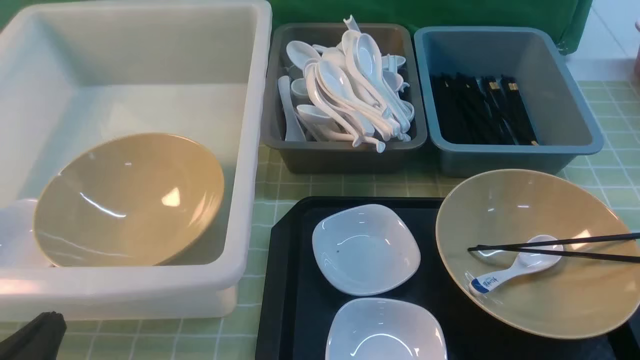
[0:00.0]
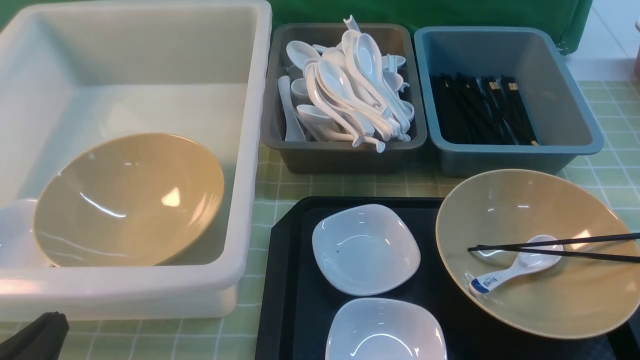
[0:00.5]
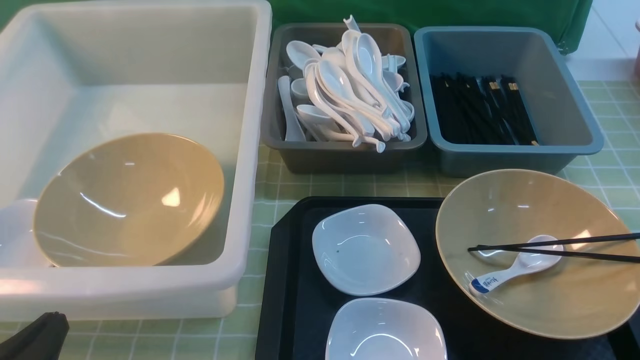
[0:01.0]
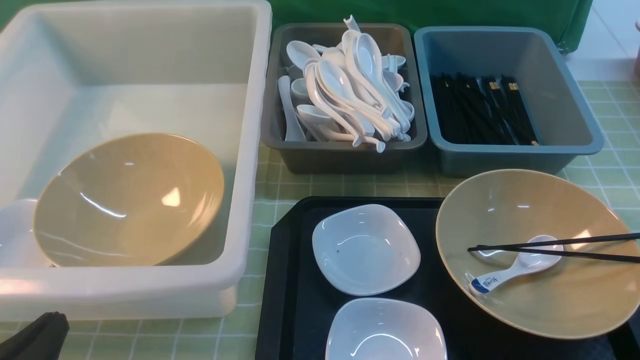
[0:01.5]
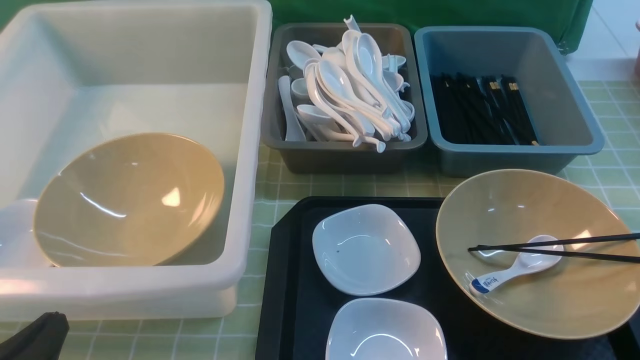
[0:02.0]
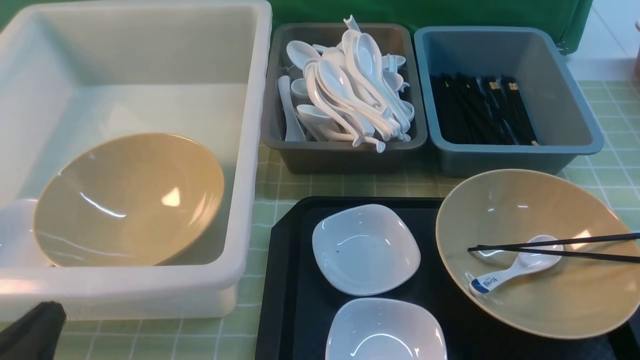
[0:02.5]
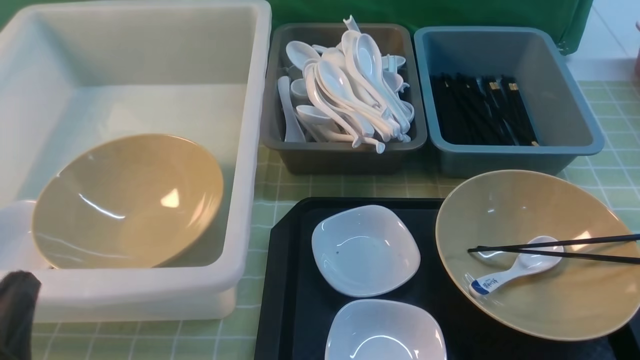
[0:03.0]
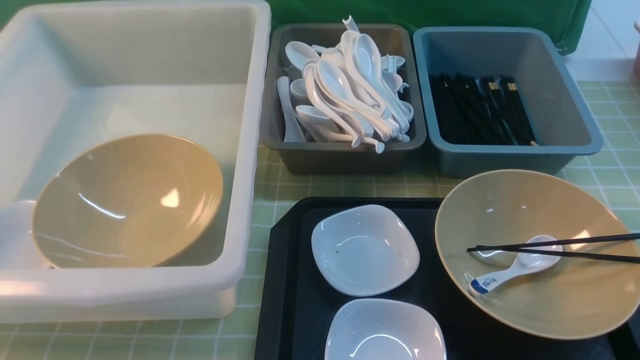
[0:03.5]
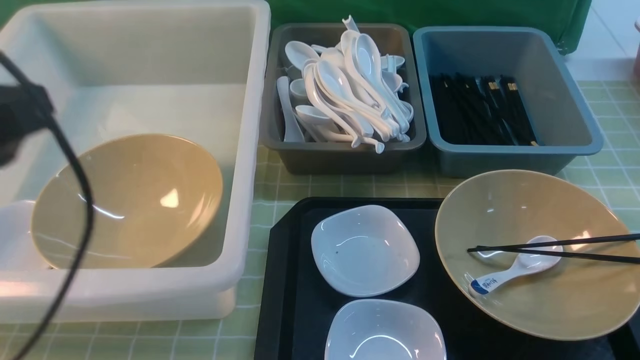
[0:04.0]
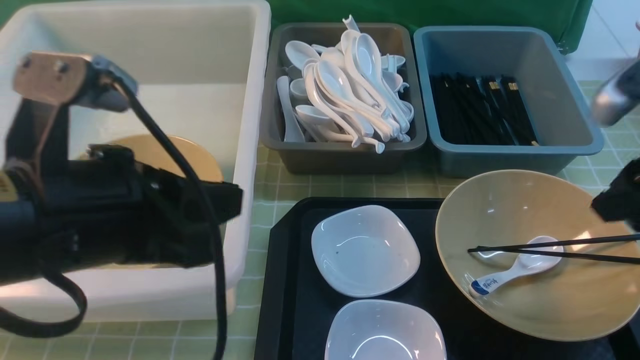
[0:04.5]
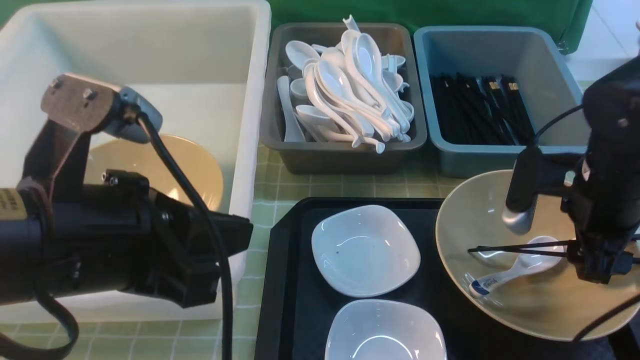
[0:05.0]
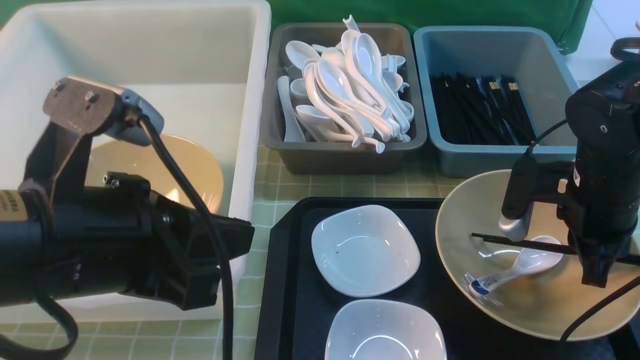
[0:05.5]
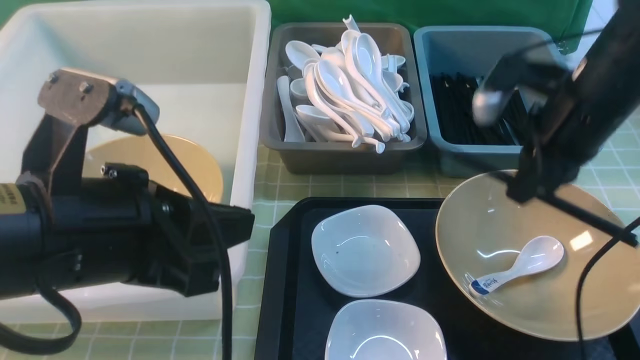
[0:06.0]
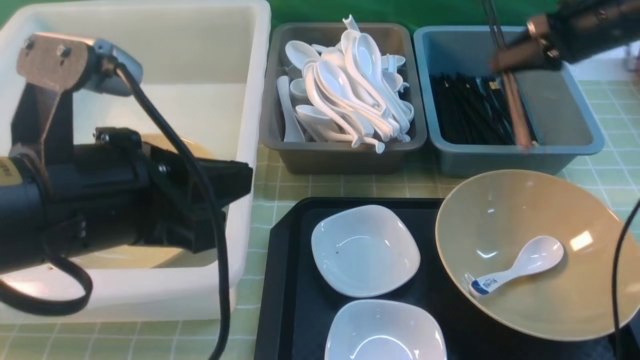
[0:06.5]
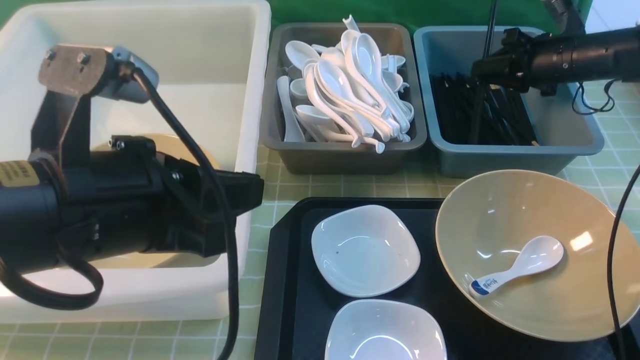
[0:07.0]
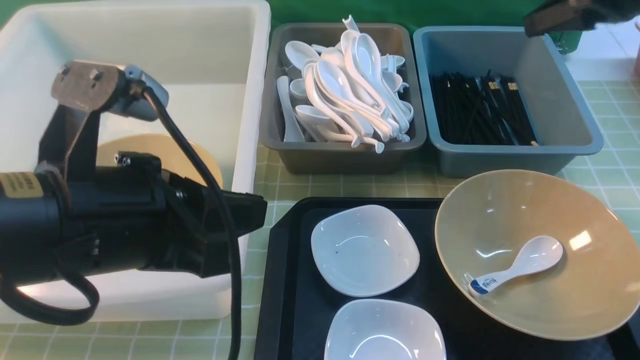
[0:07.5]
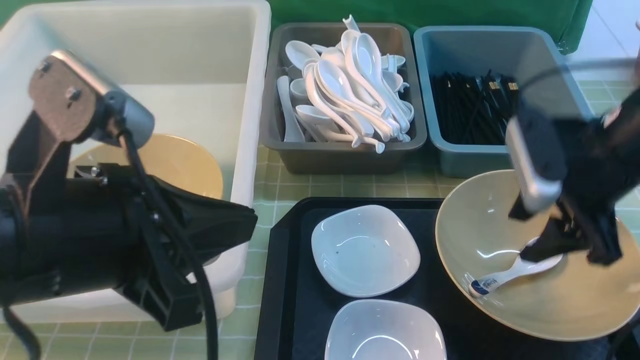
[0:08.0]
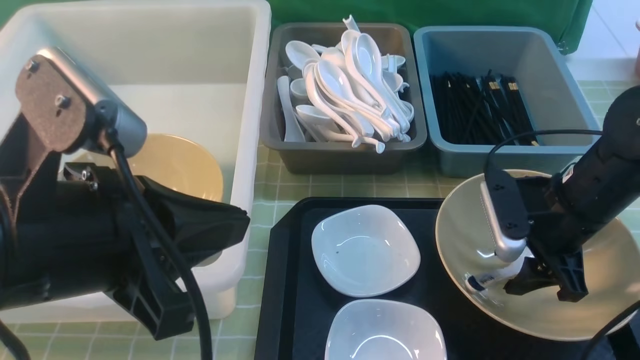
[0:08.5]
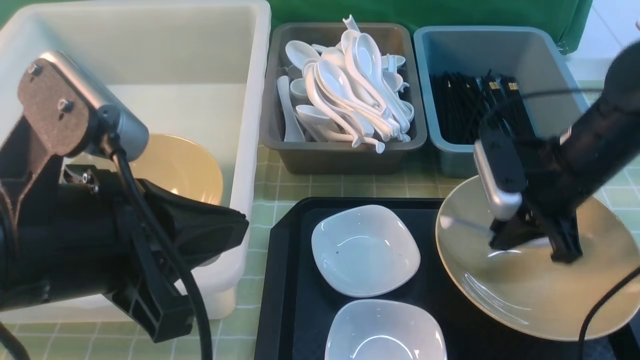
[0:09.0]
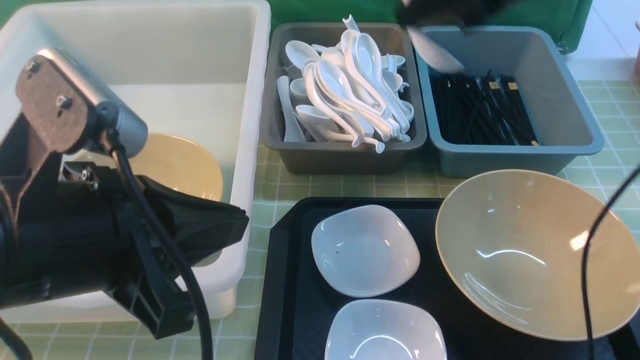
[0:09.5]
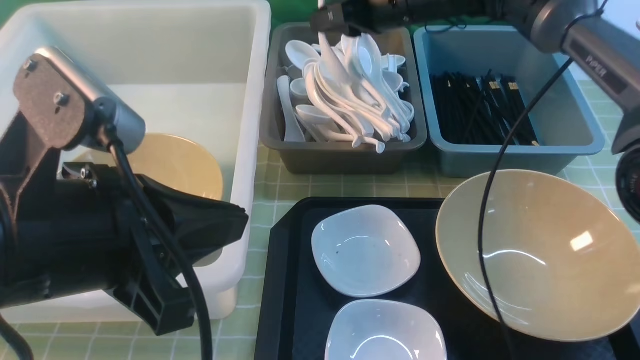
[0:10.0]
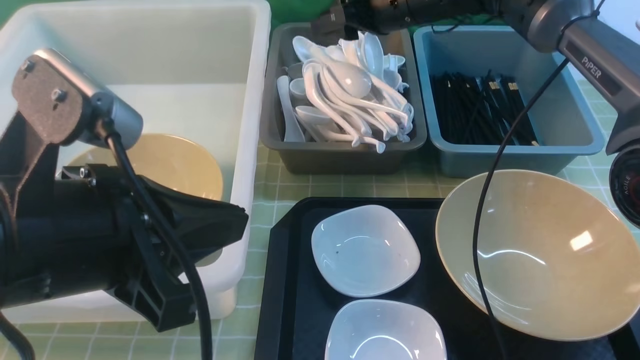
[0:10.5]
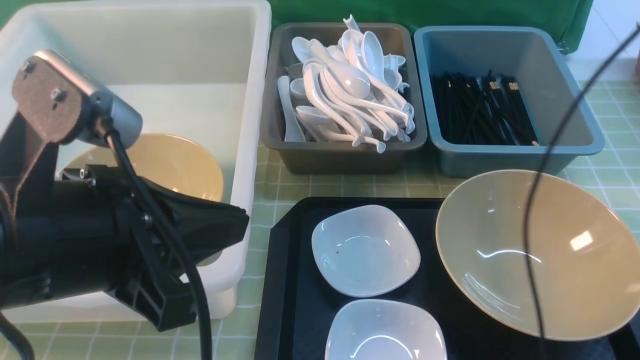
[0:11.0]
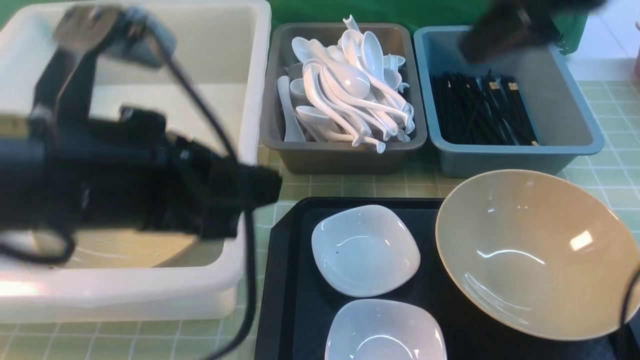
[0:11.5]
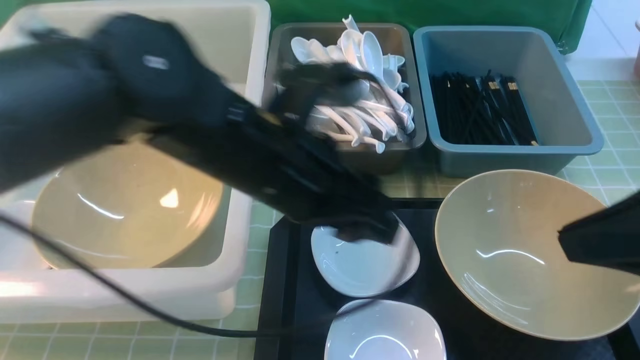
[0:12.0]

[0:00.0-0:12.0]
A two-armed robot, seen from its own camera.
Task of the whole recording: on green table put chopsticks spoon bowls plates into blue grey white boxes.
Step, 0:00.0 to 0:06.0: use the right arm to grab the chopsticks.
Step, 0:06.5 to 0:07.0: use the right arm to put the chopsticks into the small storage box on the right.
Step, 0:07.5 to 0:09.0: use the right arm to grab the soup spoon in the middle.
Step, 0:09.5 to 0:10.0: use the right arm to put the soup spoon into the small storage box in the middle.
0:00.0 to 0:02.0: The two grippers keep their place.
0:02.0 to 0:04.0: The grippers both shift upward and forward by some 20 cm.
0:04.0 to 0:06.0: The left gripper heads to the right, covering roughly 5 cm. Meanwhile the right gripper travels forward and downward by roughly 20 cm, and opens, then closes again.
0:06.0 to 0:08.0: The right gripper moves some 15 cm forward and comes back, and opens its fingers.
0:08.0 to 0:10.0: The right gripper travels forward and to the left by roughly 25 cm, and closes.
0:10.0 to 0:12.0: The right gripper moves backward, roughly 35 cm, and opens, then closes once more. The left gripper travels to the right and forward by some 15 cm, and opens up.

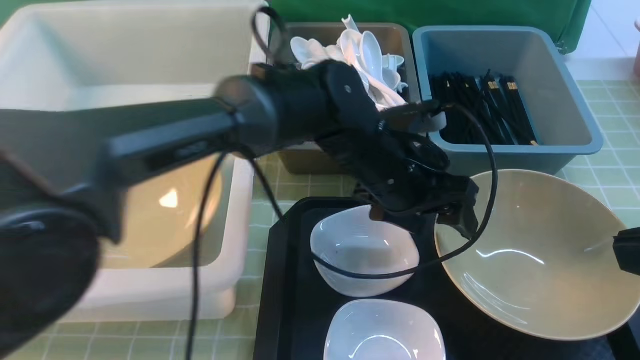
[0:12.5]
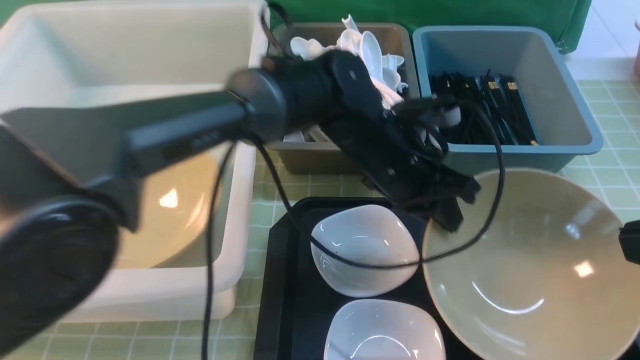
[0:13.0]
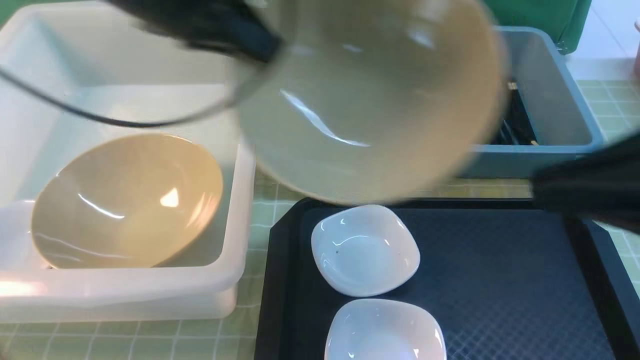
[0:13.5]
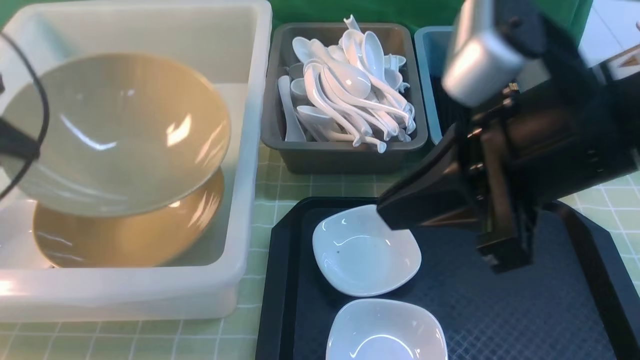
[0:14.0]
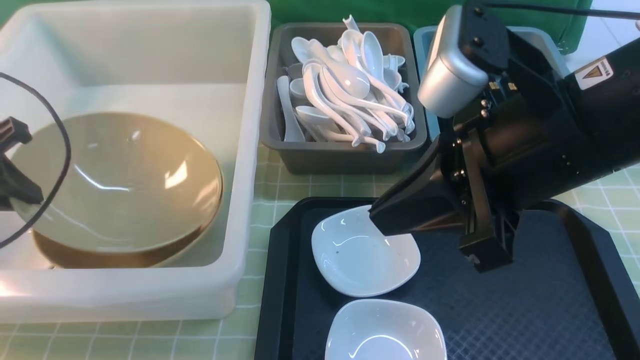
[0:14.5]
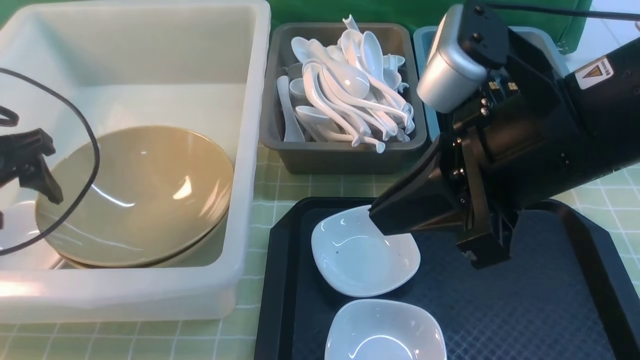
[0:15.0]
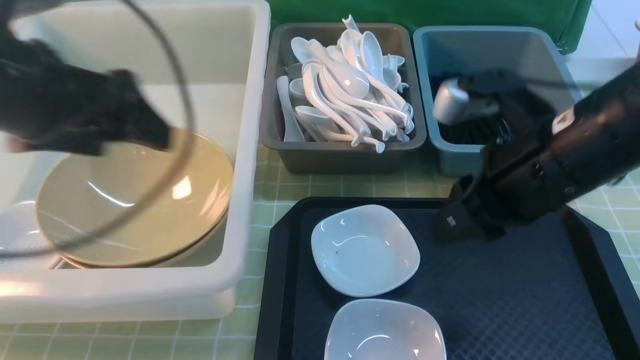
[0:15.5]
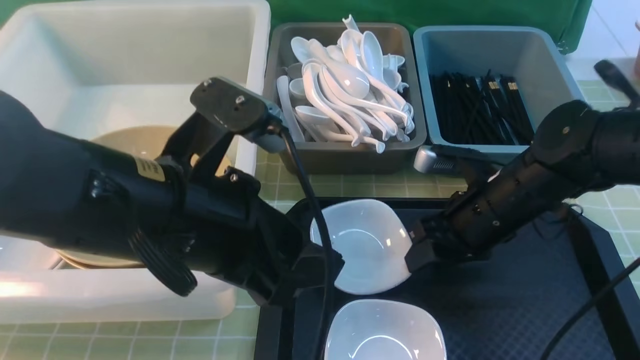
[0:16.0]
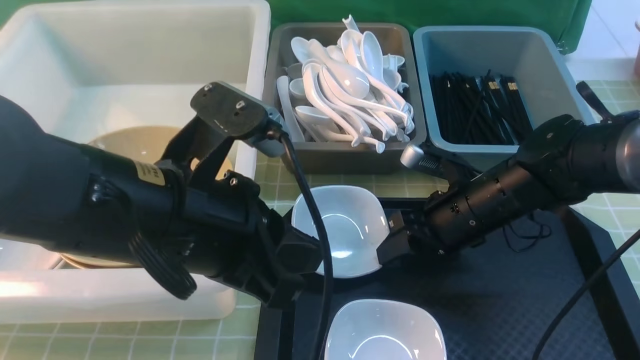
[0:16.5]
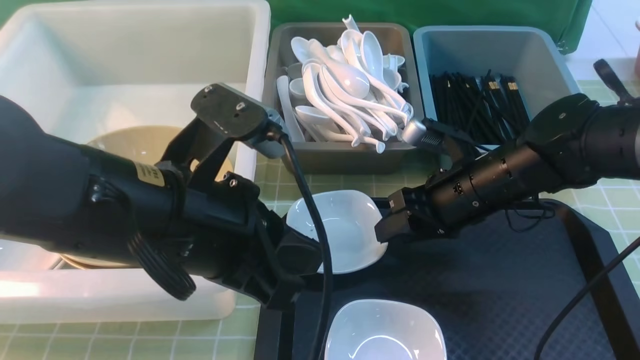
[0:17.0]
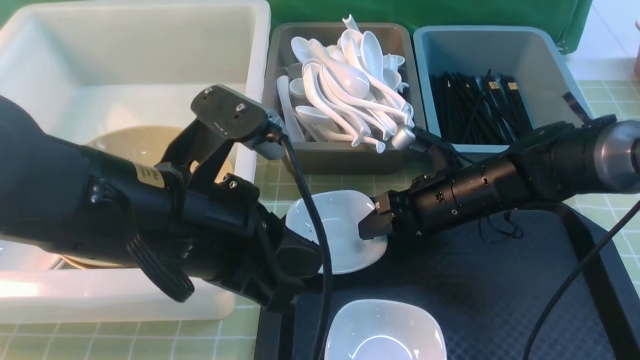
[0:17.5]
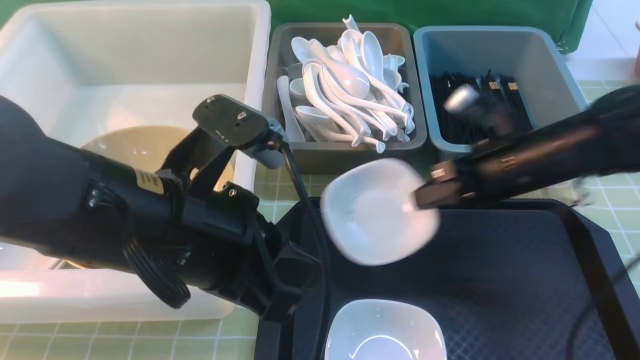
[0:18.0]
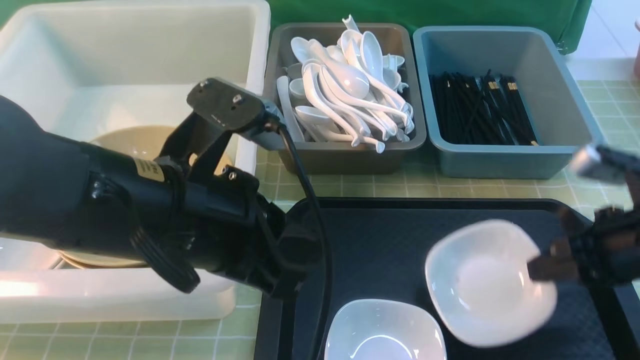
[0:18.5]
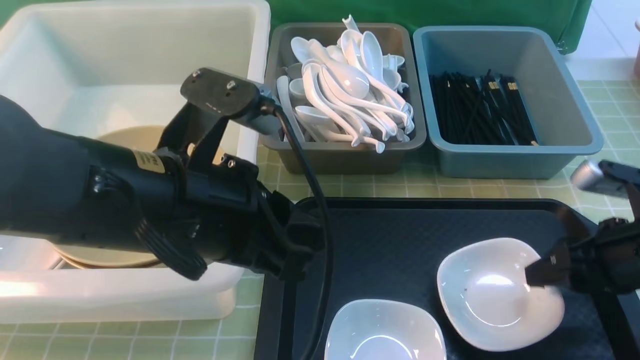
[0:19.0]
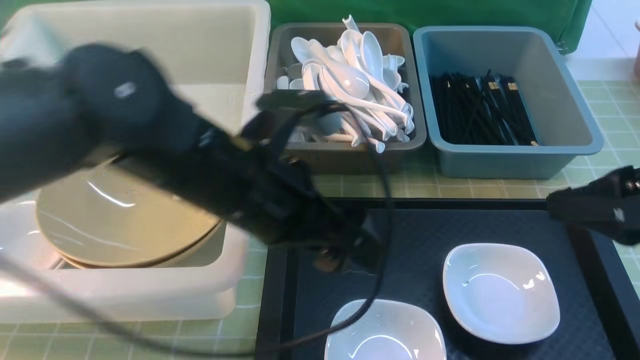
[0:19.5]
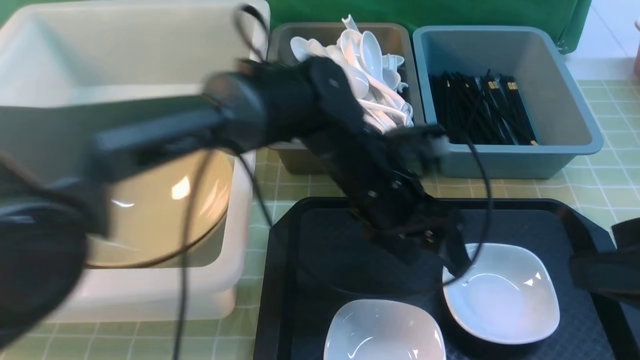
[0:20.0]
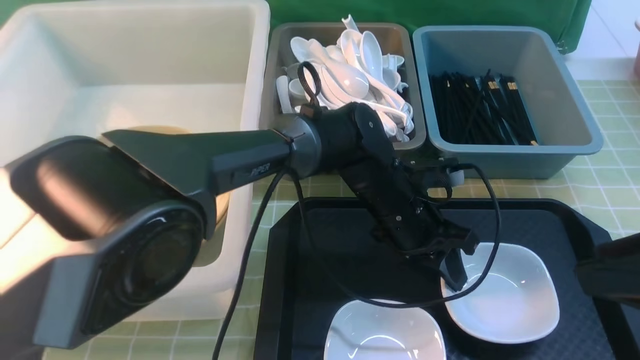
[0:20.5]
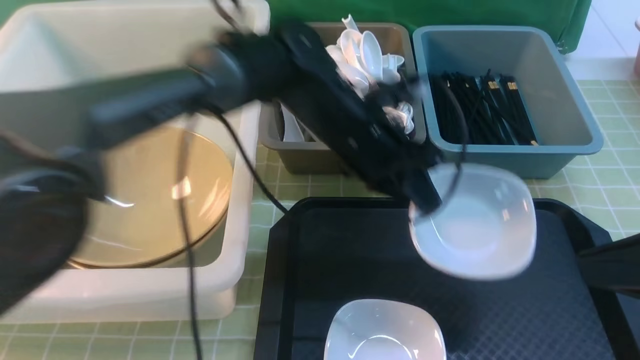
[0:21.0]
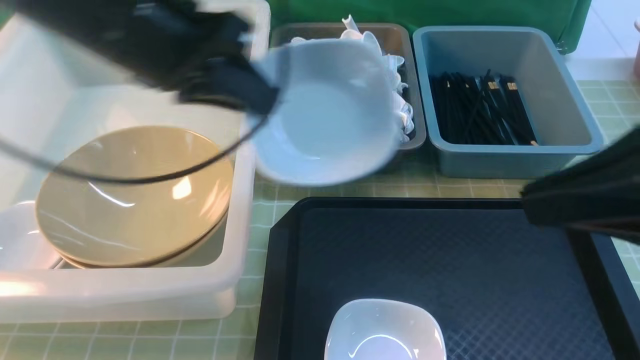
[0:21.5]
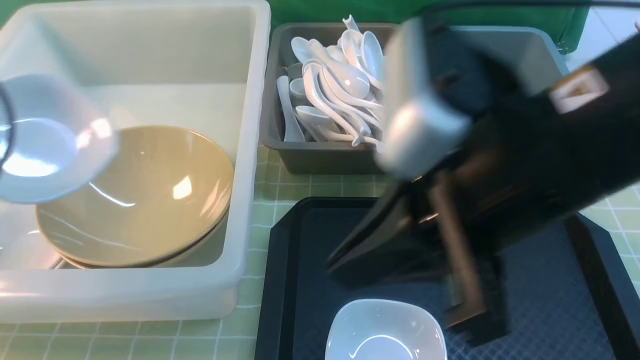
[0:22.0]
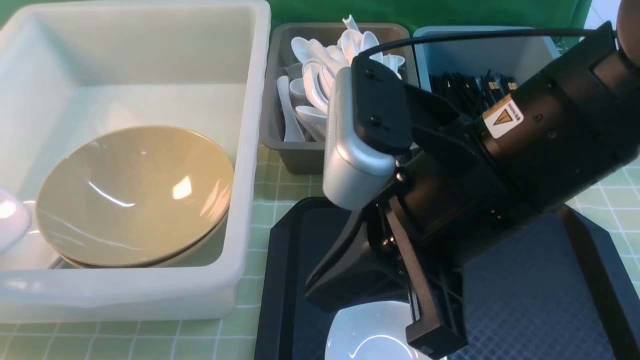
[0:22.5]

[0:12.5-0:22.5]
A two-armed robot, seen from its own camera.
Task of the whole recording: on green table put chopsticks spoon bowls plates into blue grey white boxes.
Step, 0:13.5 to 0:15.0: use the left arm to put the noodle bowl into the large storage box on the left.
Step, 0:15.5 to 0:18.0: use the right arm to grab the plate.
Step, 0:18.5 to 0:19.0: use the right arm to put the plate on the tray.
Step, 0:19.5 to 0:20.5: use the left arm to grab the plate.
0:12.5 to 0:14.5: The right gripper travels to the left and forward by approximately 15 cm. Meanwhile the left gripper heads to the left, covering some 40 cm, and closes its fingers.
0:14.5 to 0:16.5: The right gripper heads downward and forward, covering about 25 cm, and opens up. Meanwhile the left gripper goes approximately 25 cm to the right and backward, and opens, then closes again.
0:16.5 to 0:18.5: The right gripper shifts approximately 15 cm to the right and backward, and closes.
0:18.5 to 0:20.5: The left gripper shifts about 30 cm to the right, downward and forward, and opens and closes again. The right gripper moves upward and backward, some 15 cm, and opens and closes again.
0:20.5 to 0:22.5: The right gripper heads to the left, covering approximately 20 cm, and closes its fingers. The left gripper shifts approximately 50 cm to the left.
